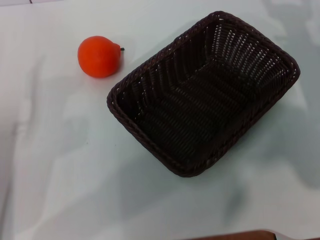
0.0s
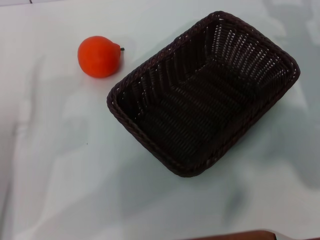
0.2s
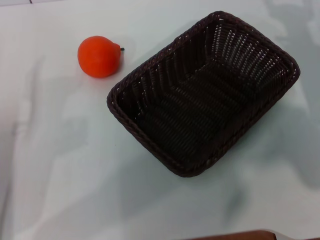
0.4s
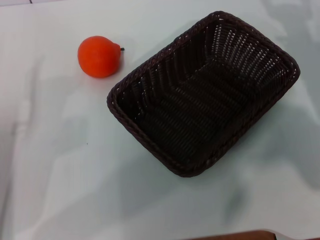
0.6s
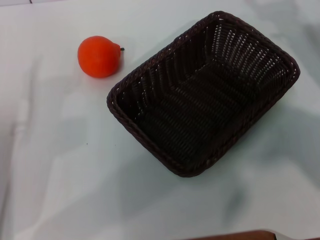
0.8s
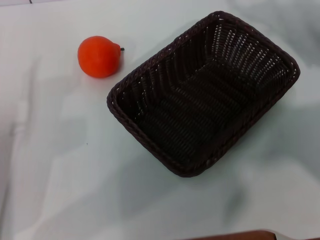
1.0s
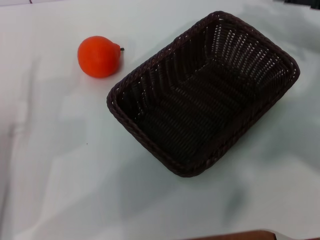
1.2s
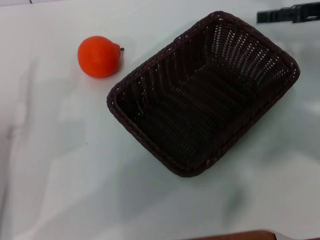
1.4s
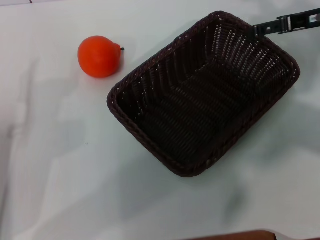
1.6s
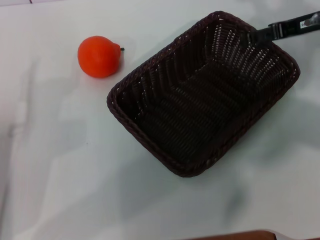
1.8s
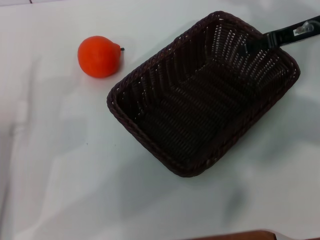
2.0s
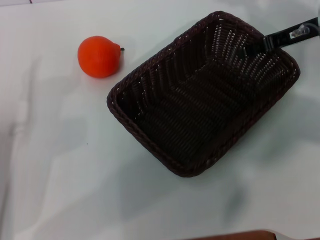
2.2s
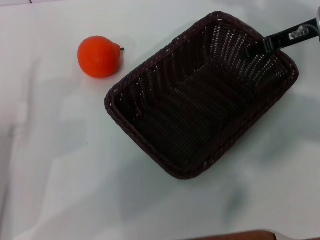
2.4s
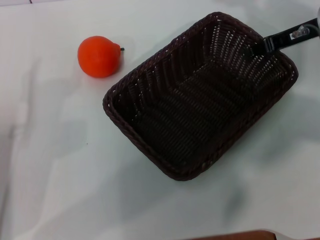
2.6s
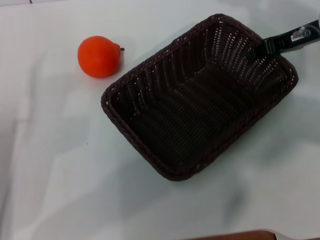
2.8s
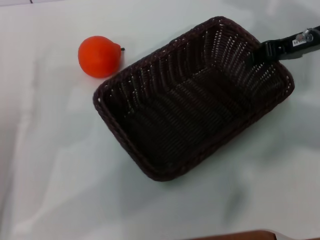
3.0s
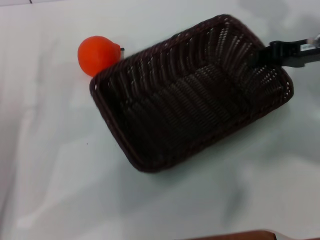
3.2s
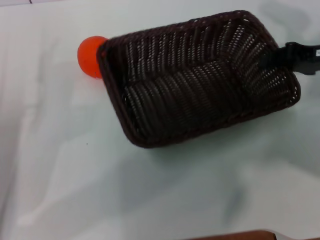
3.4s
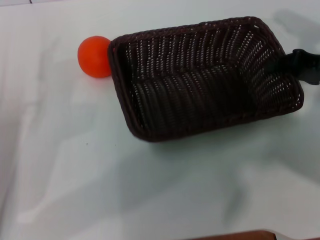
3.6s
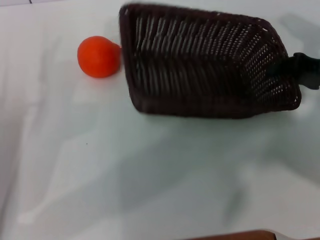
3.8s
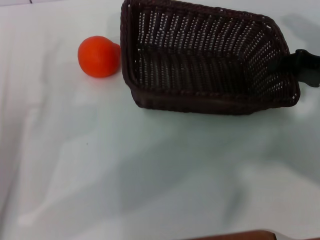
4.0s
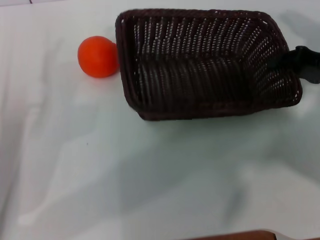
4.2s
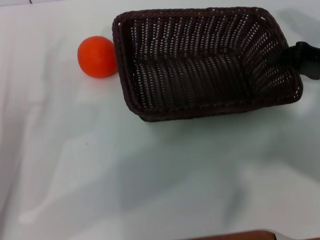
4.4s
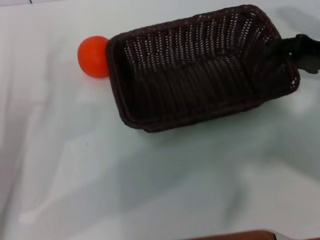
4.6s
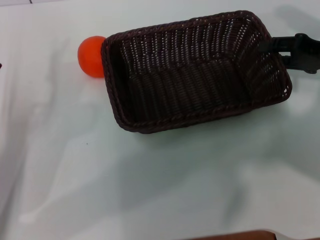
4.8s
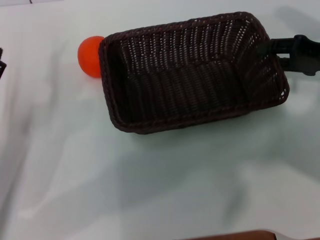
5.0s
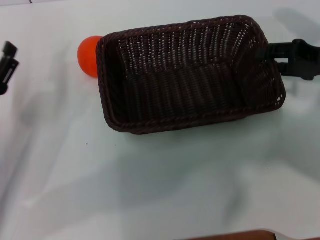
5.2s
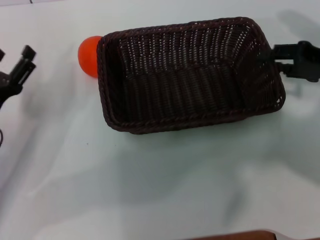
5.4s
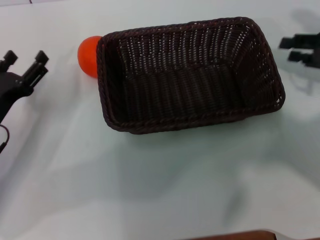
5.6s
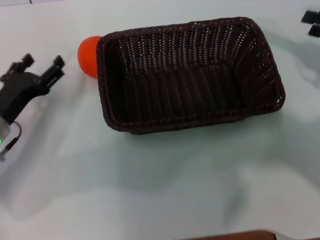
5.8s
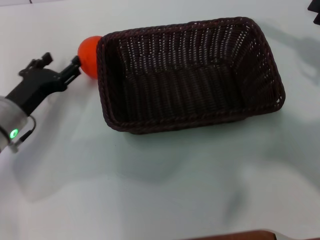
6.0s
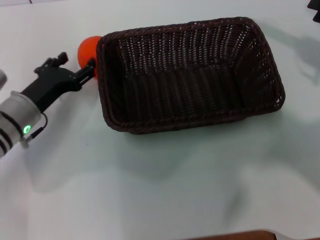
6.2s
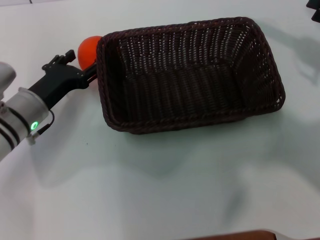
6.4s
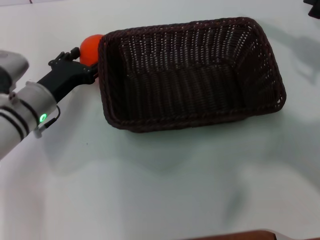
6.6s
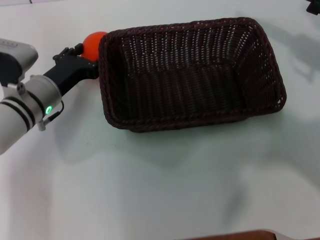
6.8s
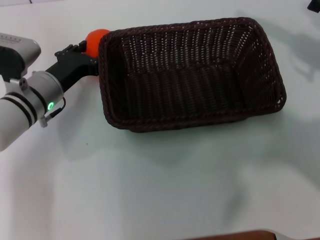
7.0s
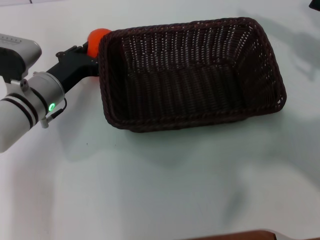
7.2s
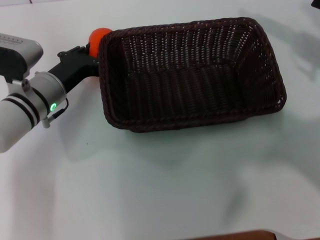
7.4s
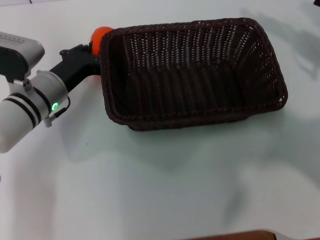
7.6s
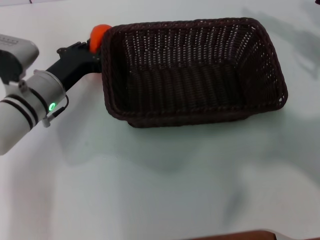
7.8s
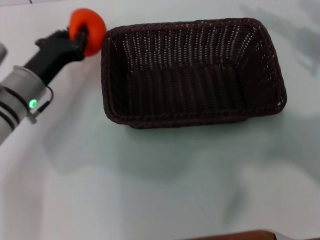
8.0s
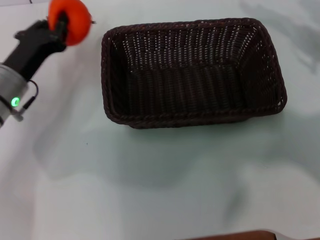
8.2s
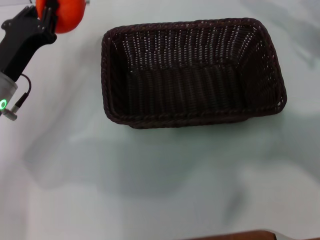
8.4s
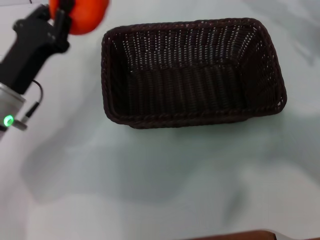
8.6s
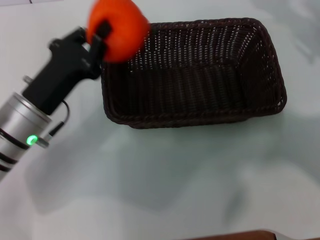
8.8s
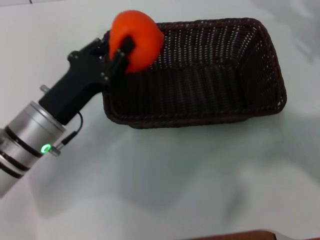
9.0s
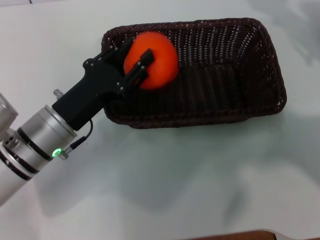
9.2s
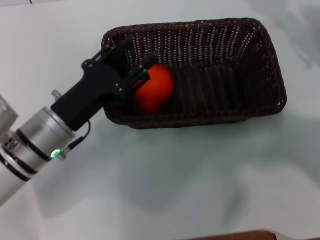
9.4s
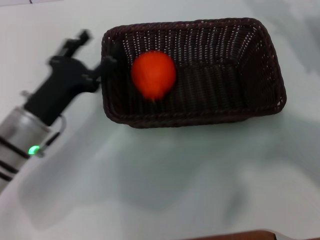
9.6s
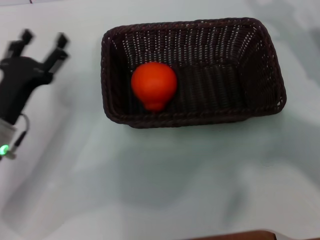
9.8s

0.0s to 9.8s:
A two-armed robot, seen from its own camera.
Task of the whole recording: the right gripper pick up the black basket and place it horizontally in the middle of the table, the left gripper pick up the orange and place it into the black basket.
Step, 0.0s to 3.2s: Pick up the dark basket with the right gripper.
Step, 3.4s to 5.4s: Place the dark basket in the center of view with the right gripper.
Step, 5.8s to 8.0s: Pick up the orange with the left gripper.
Step, 8.2s to 9.4s: Place the orange into the dark basket with the left gripper.
0.0s to 1.4s: The right gripper goes roughly 10 cm upward and forward.
1.4s to 2.8s: The right gripper shifts by approximately 5 cm, and closes its fingers.
2.8s to 4.2s: The right gripper goes some 10 cm backward and to the right.
4.2s to 5.6s: The right gripper opens up.
5.6s to 7.0s: The left gripper is displaced to the right and forward by roughly 10 cm.
7.0s to 8.4s: The left gripper changes place by some 5 cm, and closes up.
8.4s to 9.8s: The left gripper moves backward, approximately 5 cm, reaches about 5 cm to the right, then returns, and opens. Meanwhile the right gripper moves downward, roughly 5 cm.
